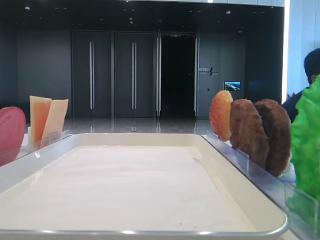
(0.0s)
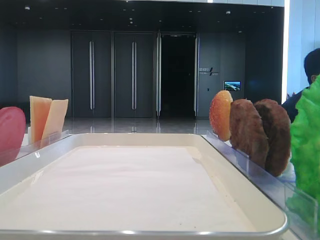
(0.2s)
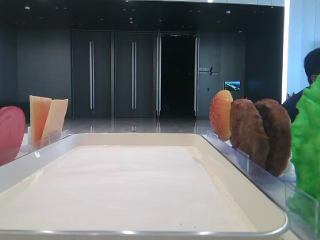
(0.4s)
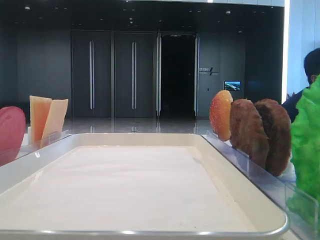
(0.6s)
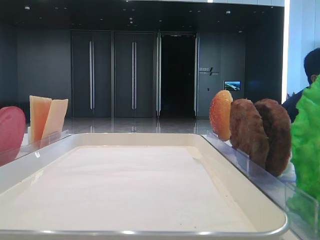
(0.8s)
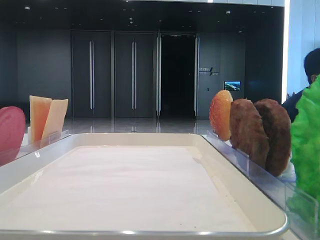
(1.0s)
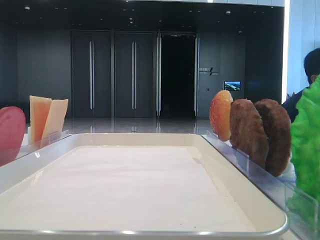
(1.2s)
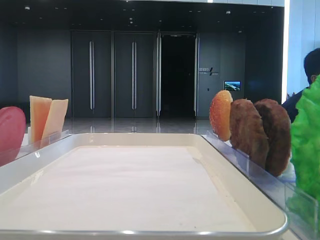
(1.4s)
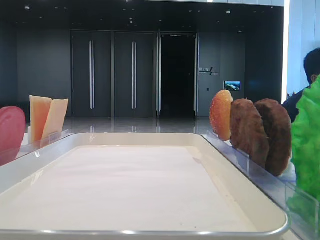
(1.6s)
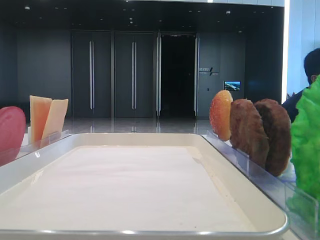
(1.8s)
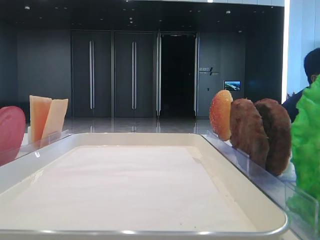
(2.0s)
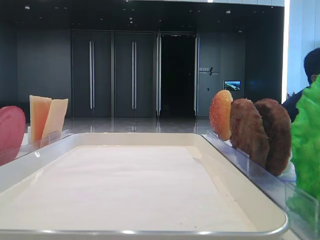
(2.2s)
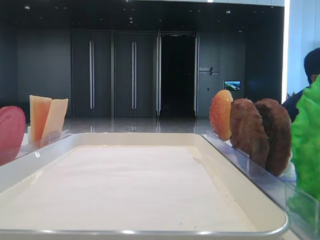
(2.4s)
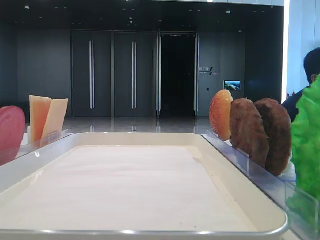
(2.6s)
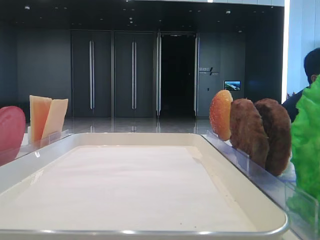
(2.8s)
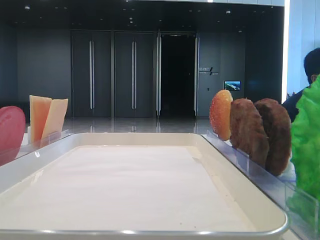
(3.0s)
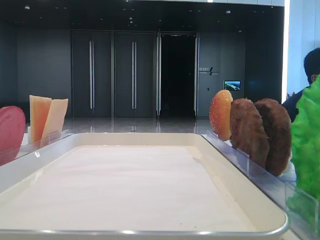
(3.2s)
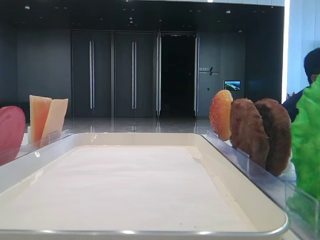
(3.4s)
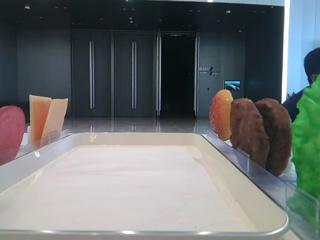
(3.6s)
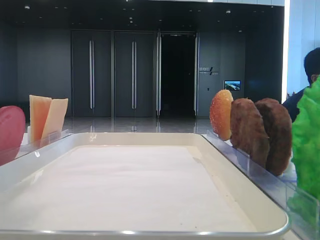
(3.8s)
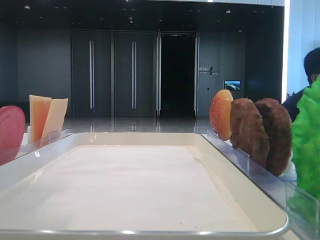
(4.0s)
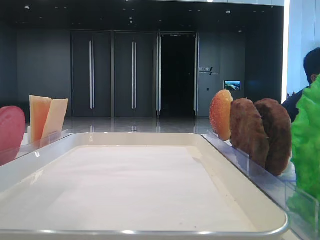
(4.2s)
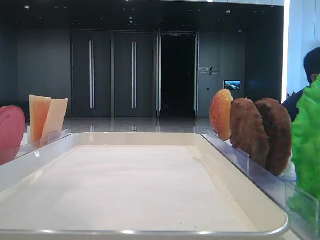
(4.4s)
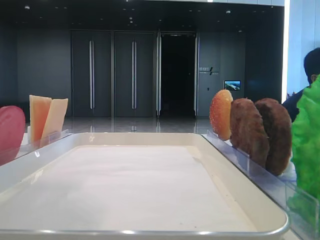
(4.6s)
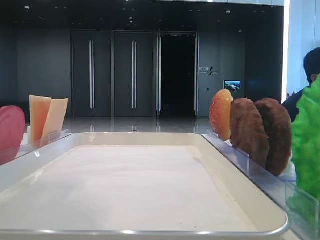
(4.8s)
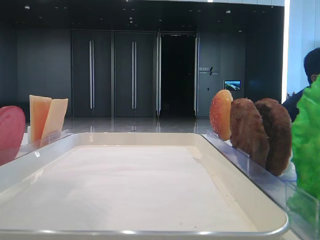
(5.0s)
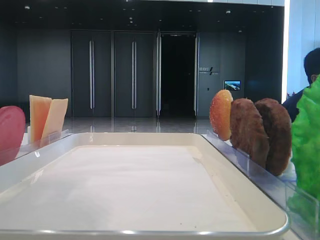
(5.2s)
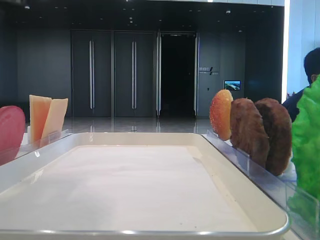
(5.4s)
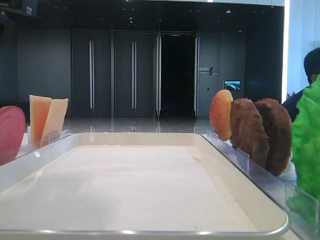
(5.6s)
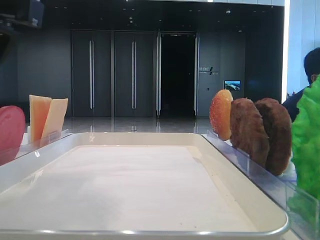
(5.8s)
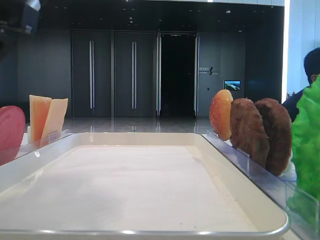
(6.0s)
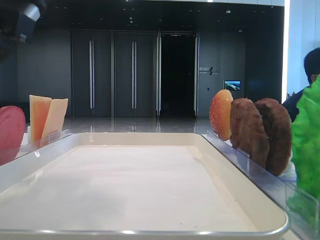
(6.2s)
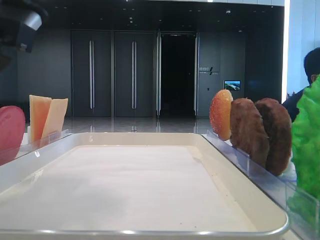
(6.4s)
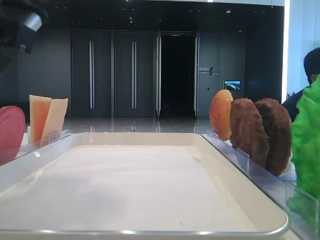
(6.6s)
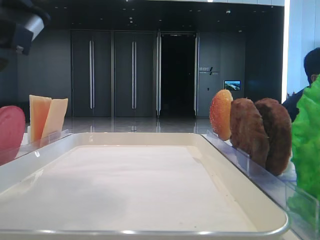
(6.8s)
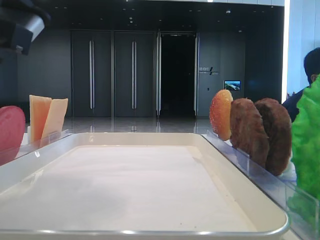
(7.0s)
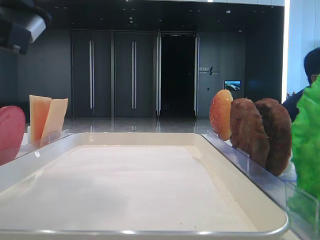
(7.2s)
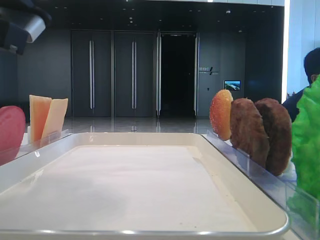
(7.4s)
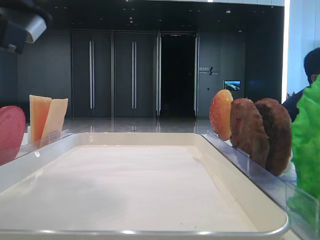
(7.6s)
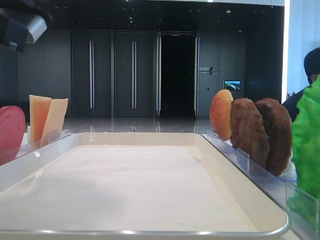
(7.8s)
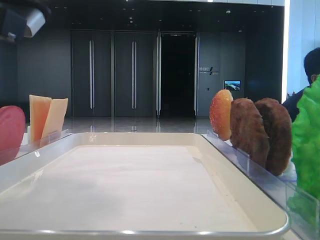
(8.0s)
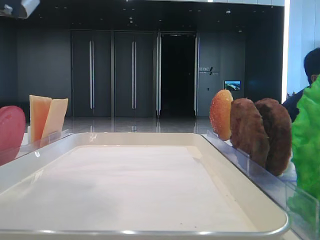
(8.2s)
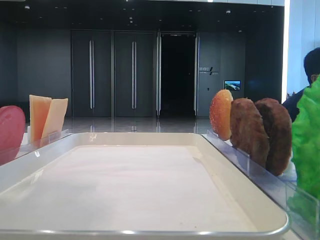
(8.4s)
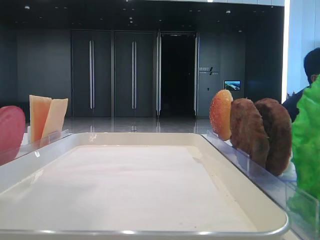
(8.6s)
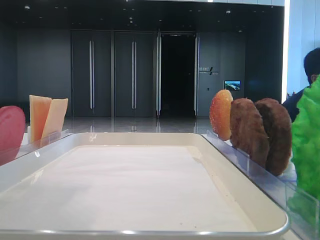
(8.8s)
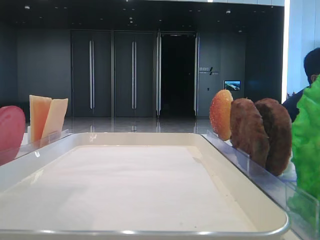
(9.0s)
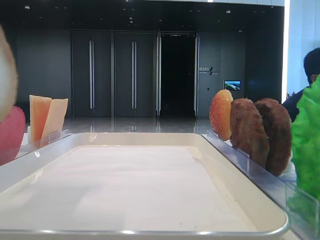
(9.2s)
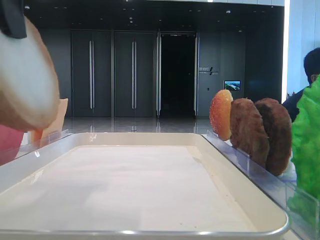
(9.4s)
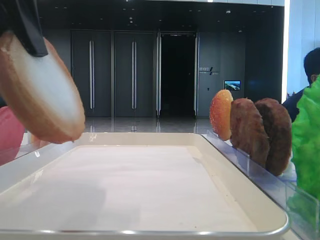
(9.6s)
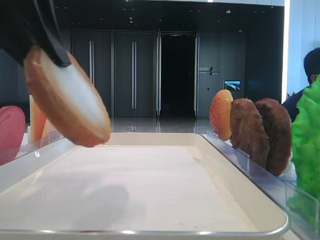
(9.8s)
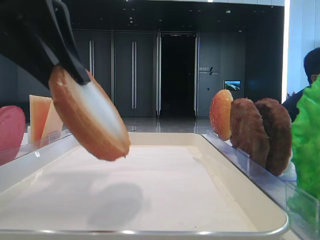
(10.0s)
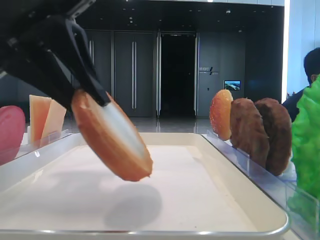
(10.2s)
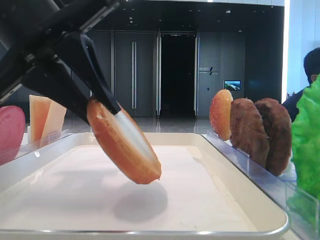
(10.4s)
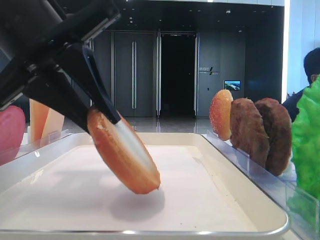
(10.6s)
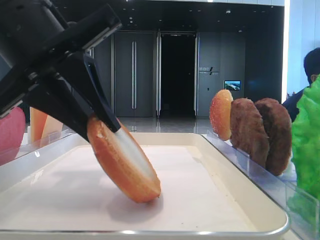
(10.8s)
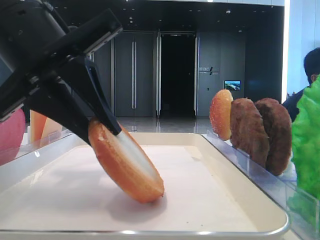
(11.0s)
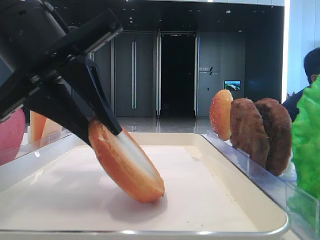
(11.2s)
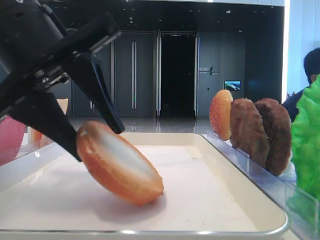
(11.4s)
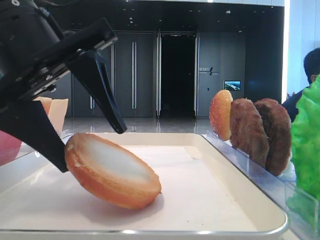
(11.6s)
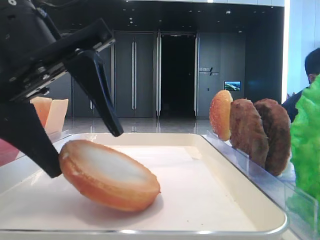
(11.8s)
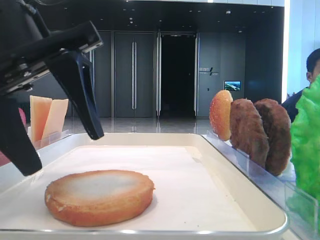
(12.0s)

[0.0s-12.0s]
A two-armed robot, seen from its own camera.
Step, 8.0s to 11.8s: Place the bread on the tray with the left hand.
3.0s to 4.4s: The left gripper goes about 15 cm to the right.
6.0s to 7.6s: The left gripper closes up.
7.6s to 9.0s: The left gripper travels upward by about 5 cm.
9.0s to 10.4s: The left gripper is displaced downward and forward by some 10 cm.
10.4s to 12.0s: The left gripper opens.

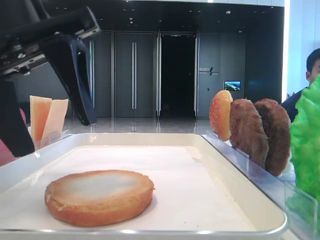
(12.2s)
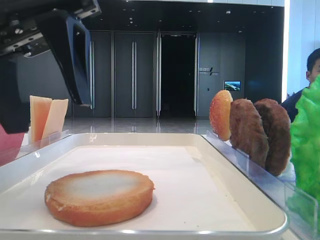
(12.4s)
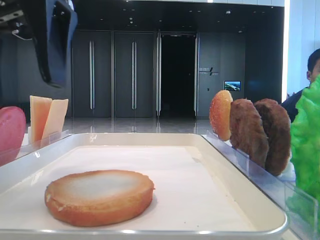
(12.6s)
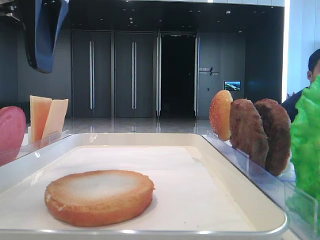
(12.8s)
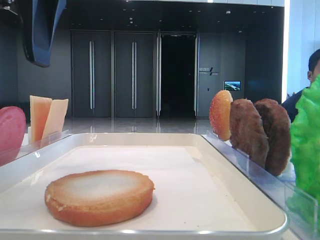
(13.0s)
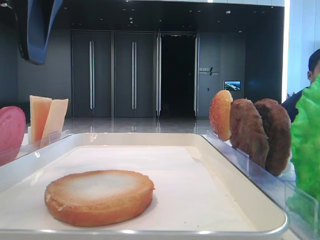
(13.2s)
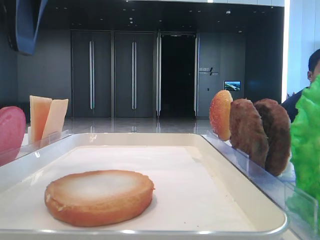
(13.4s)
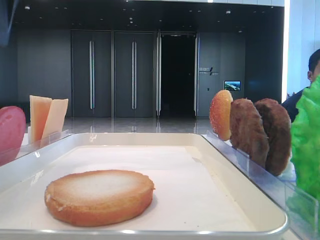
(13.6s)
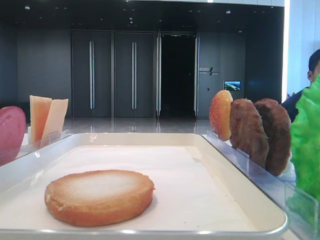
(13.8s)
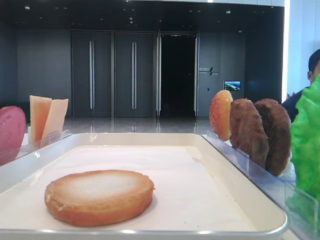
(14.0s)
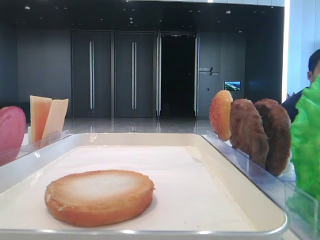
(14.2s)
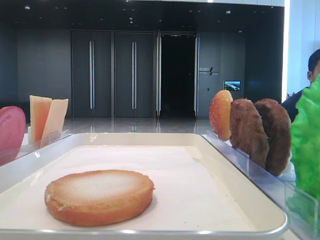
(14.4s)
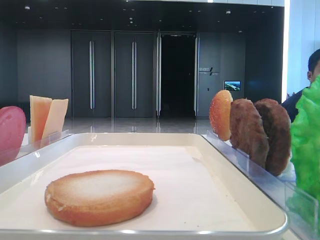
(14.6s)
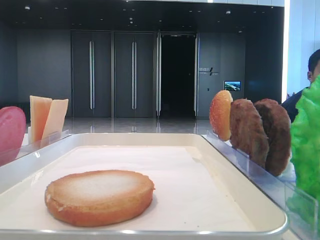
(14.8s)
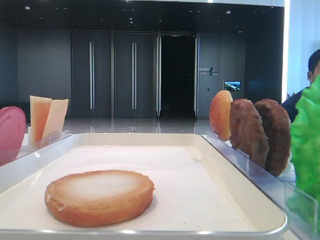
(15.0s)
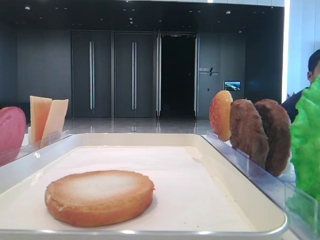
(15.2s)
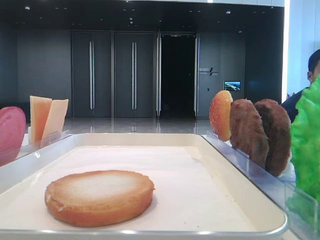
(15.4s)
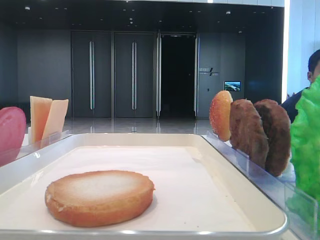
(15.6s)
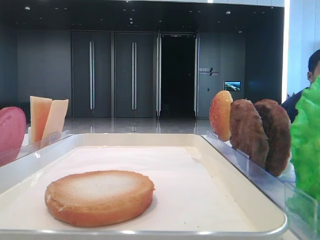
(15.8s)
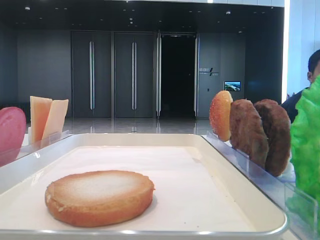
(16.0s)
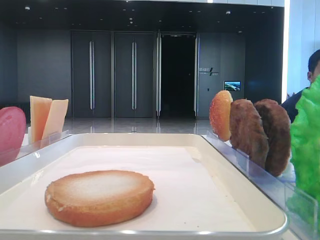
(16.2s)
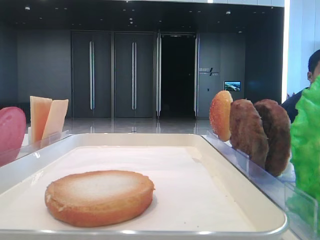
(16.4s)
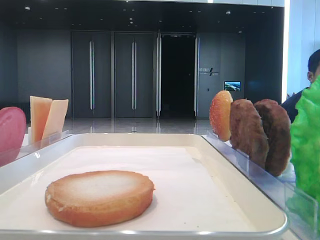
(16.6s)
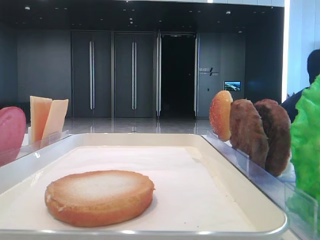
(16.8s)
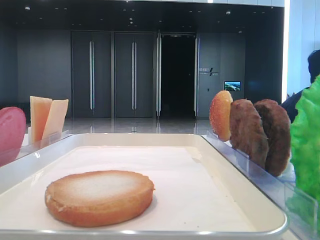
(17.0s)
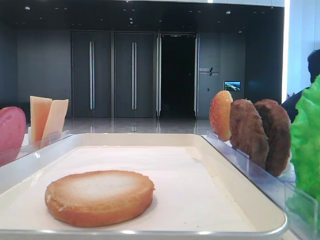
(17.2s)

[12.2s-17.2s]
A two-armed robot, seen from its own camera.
12.2s to 13.8s: The left gripper shifts about 15 cm upward and to the left.
13.8s to 15.6s: The left gripper travels backward by about 25 cm.
